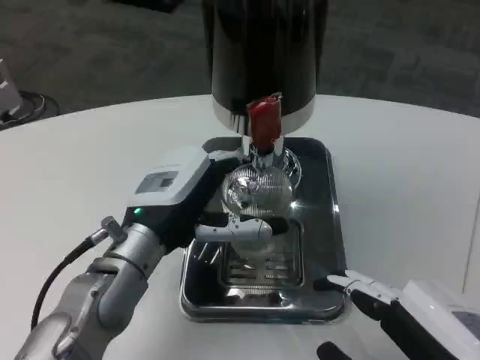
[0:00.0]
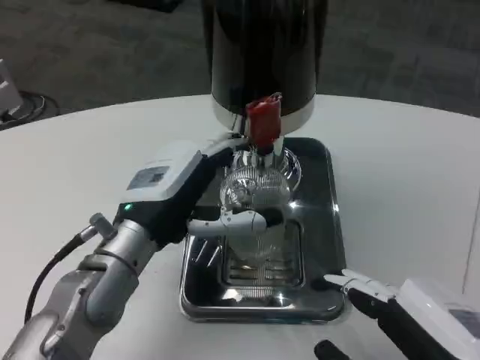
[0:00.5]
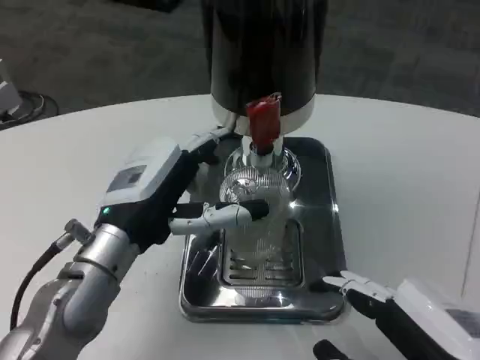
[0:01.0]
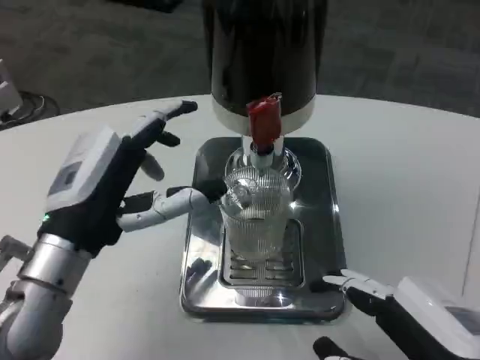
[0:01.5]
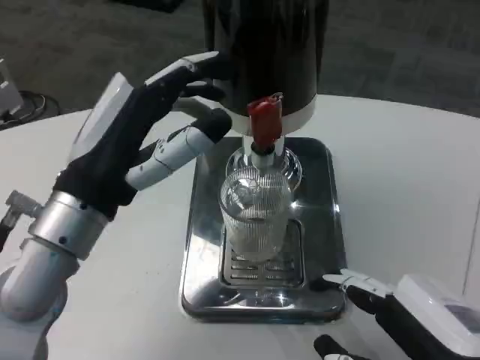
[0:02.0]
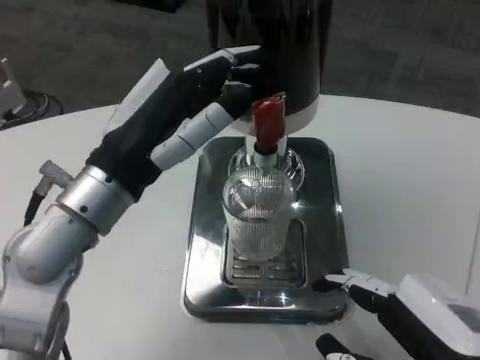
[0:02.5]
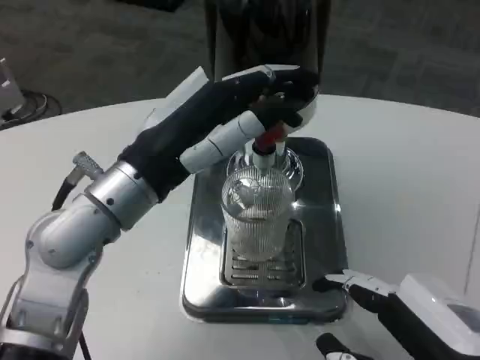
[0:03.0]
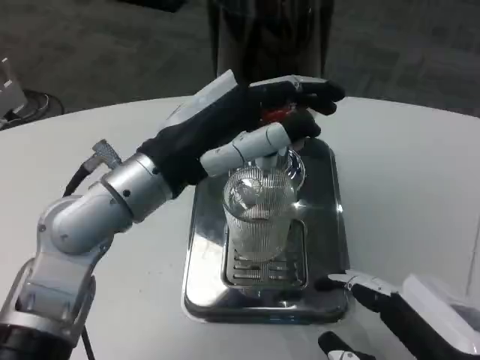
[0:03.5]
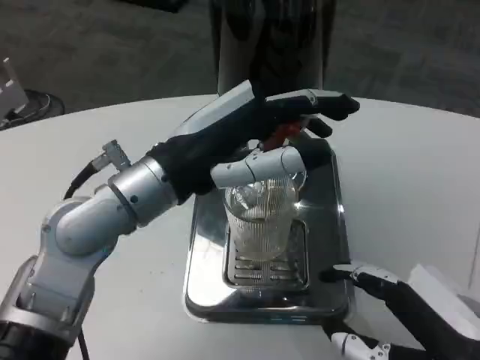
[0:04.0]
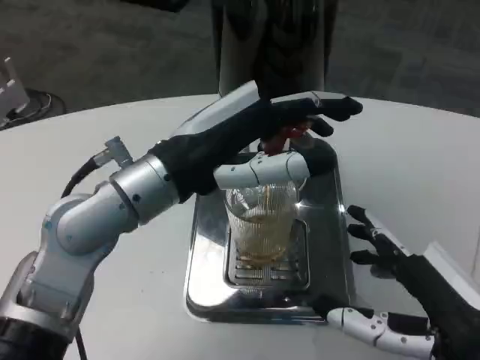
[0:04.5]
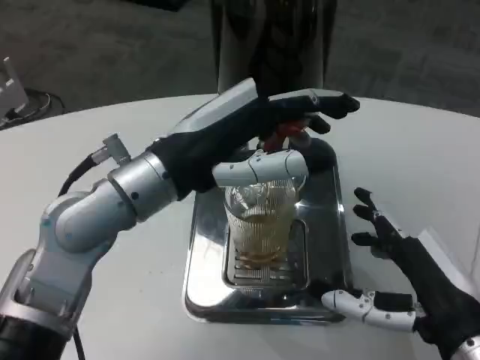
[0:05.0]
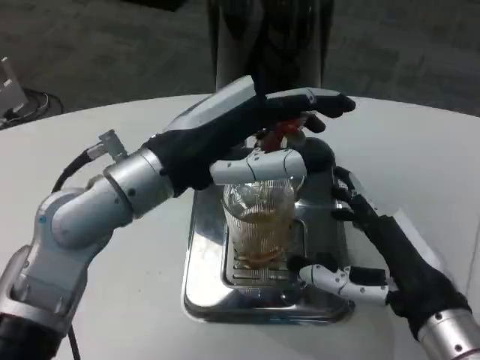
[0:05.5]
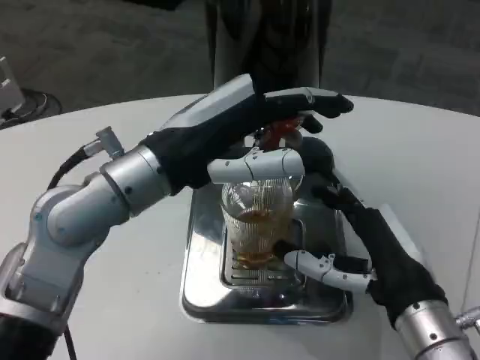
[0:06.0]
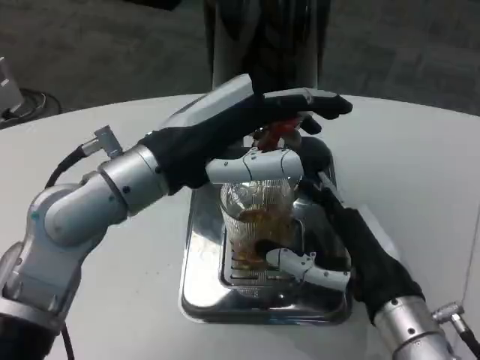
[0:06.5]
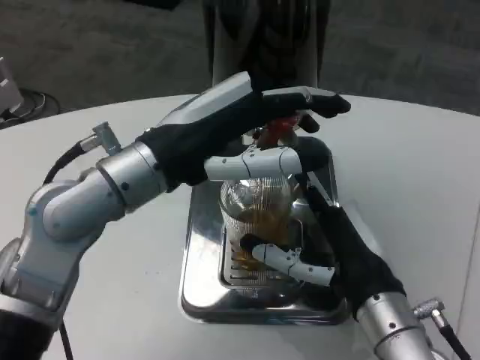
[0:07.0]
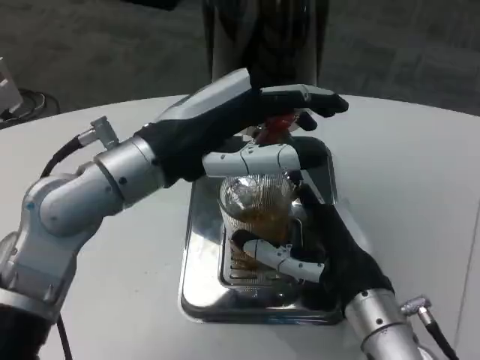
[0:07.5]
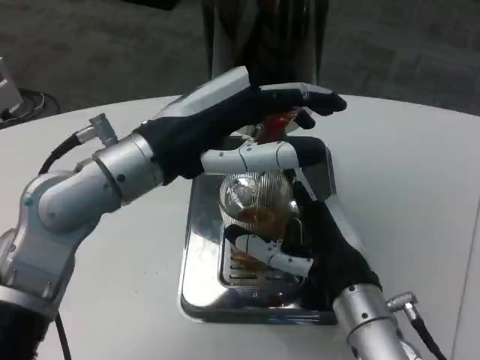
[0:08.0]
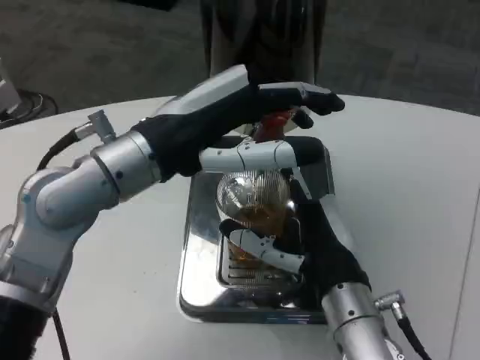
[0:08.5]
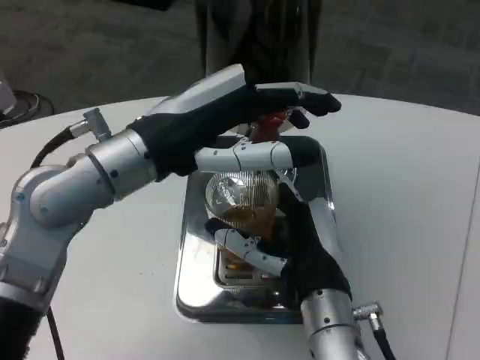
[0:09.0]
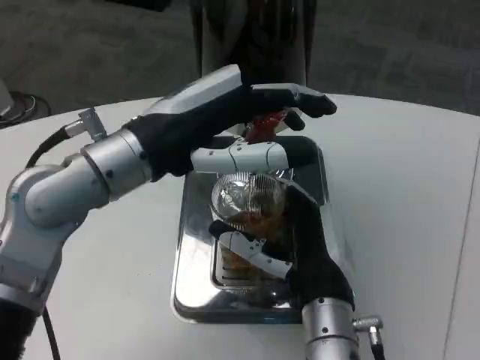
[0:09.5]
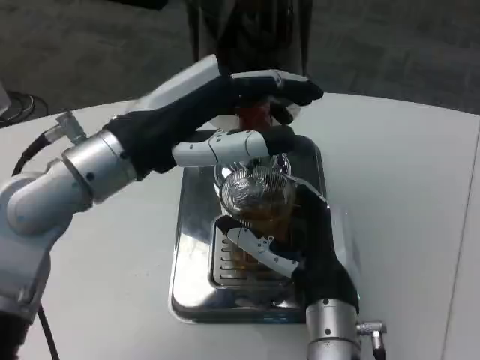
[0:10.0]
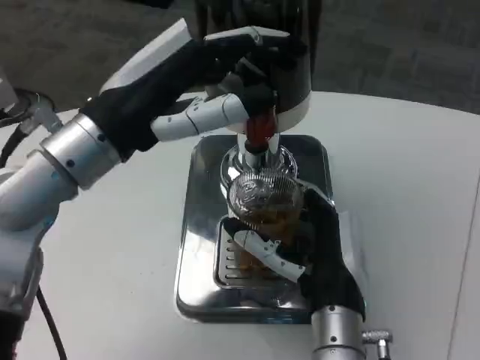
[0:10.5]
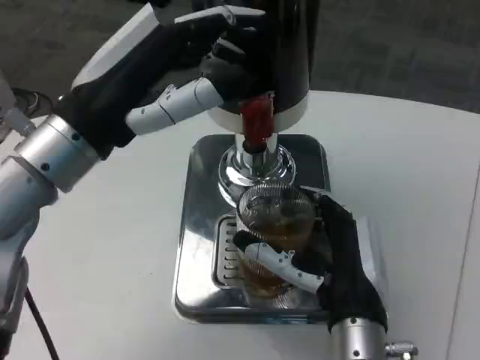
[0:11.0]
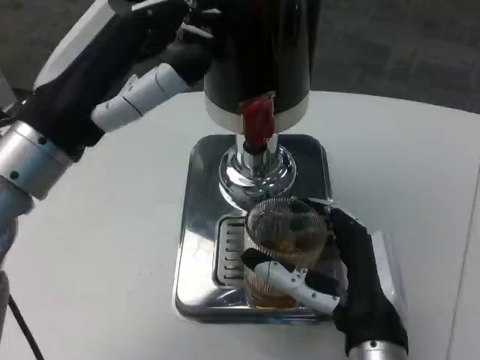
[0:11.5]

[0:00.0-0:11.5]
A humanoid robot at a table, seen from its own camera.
Task of the whole recording: Grasp the cup under the faucet to collect the drink, then remove the cup.
0:00.0 to 0:02.0: The left hand goes roughly 5 cm upward.
0:02.0 to 0:04.0: The left hand shifts by roughly 5 cm.
0:04.0 to 0:06.0: The right hand goes approximately 10 cm forward.
0:07.5 to 0:09.5: The right hand moves to the left, roughly 5 cm.
0:09.5 to 0:11.5: The right hand is displaced backward by some 5 cm. The left hand moves about 5 cm.

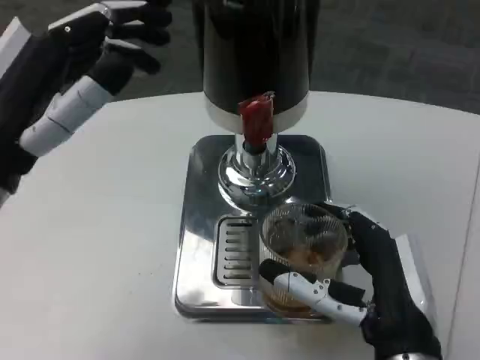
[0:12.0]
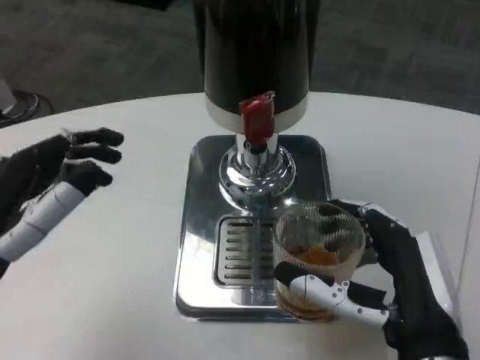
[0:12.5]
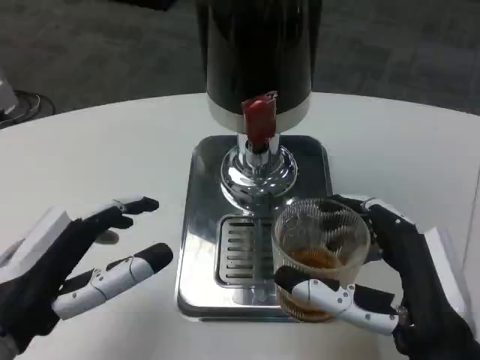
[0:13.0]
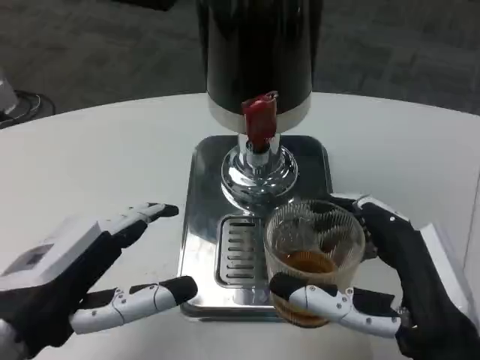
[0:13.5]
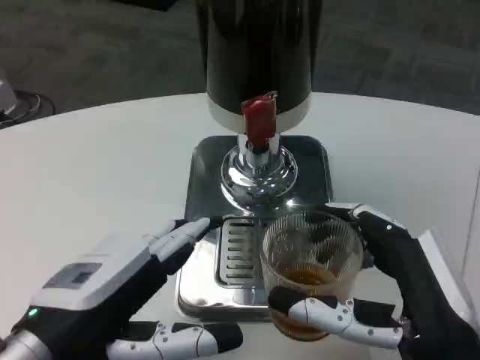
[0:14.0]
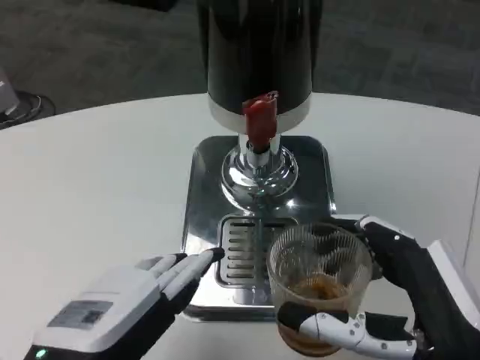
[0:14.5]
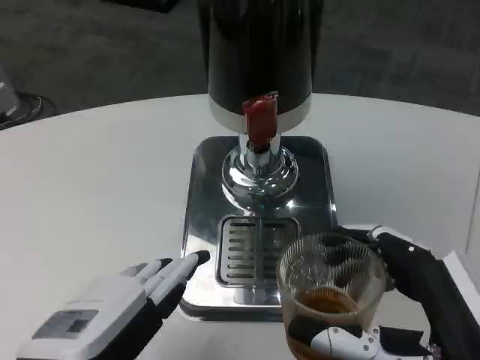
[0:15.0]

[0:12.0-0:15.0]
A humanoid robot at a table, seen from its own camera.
Task of the whole recording: Grasp the cup under the faucet to collect the drink, then remove the cup.
0:12.0 to 0:13.5: The right hand ends up approximately 5 cm from where it was; the left hand moves downward and backward, approximately 10 cm.
0:13.5 to 0:15.0: The left hand heads backward, covering roughly 5 cm.

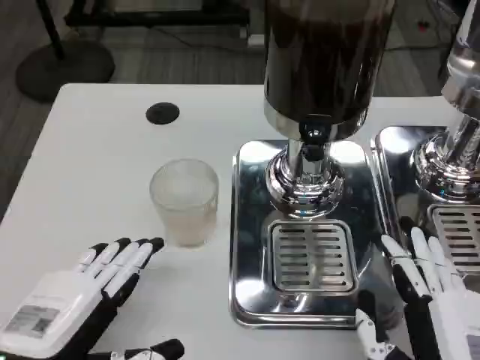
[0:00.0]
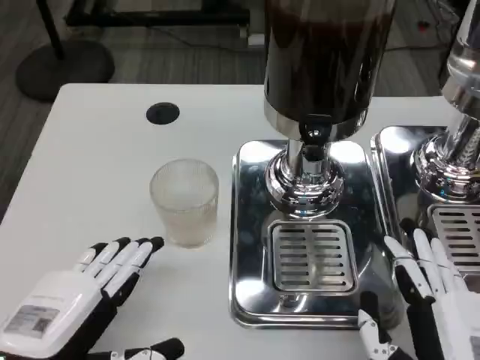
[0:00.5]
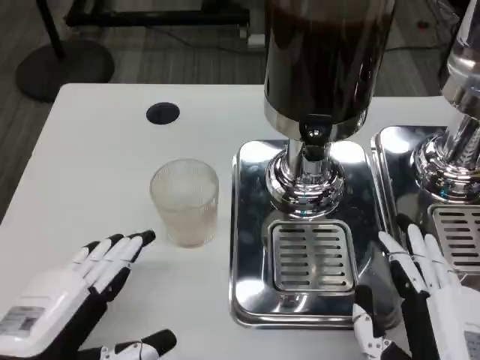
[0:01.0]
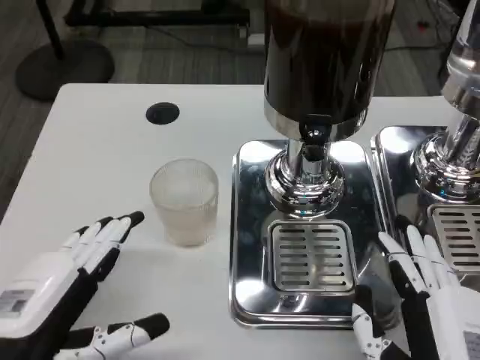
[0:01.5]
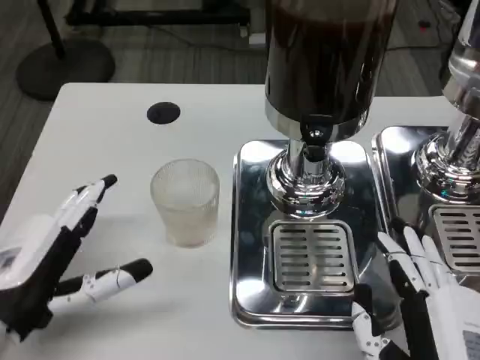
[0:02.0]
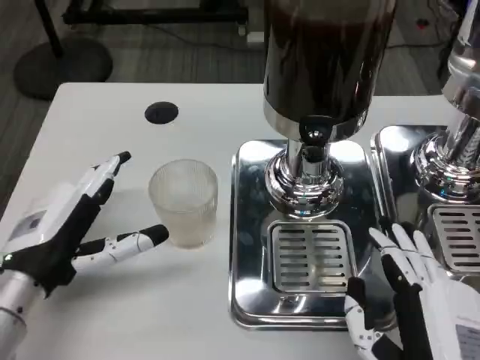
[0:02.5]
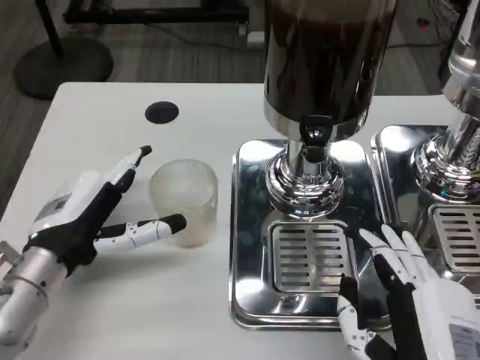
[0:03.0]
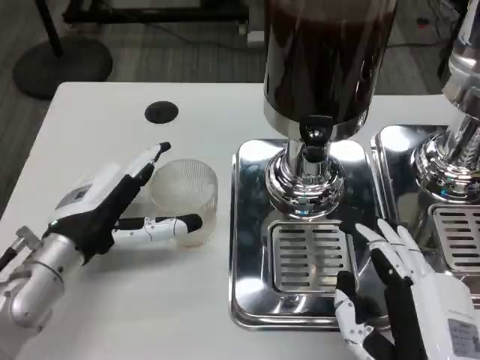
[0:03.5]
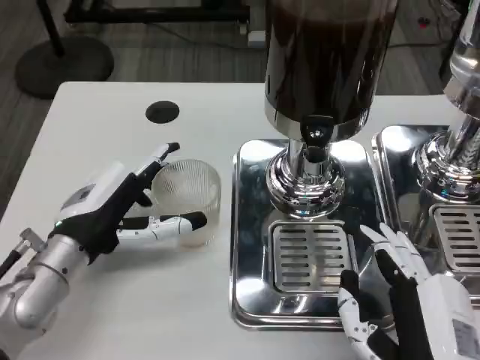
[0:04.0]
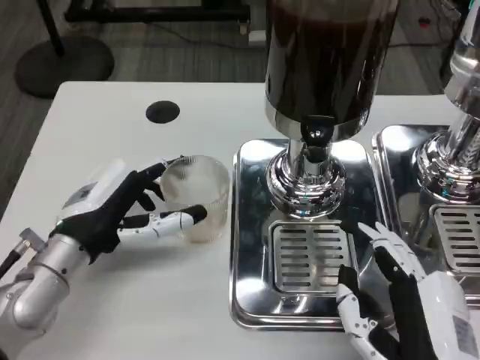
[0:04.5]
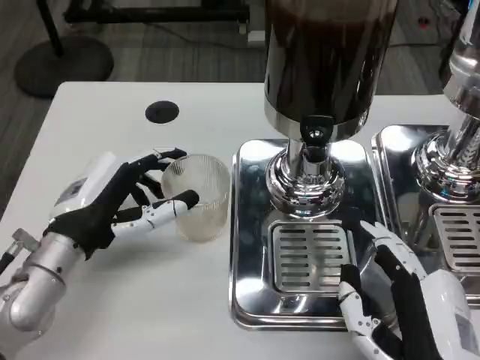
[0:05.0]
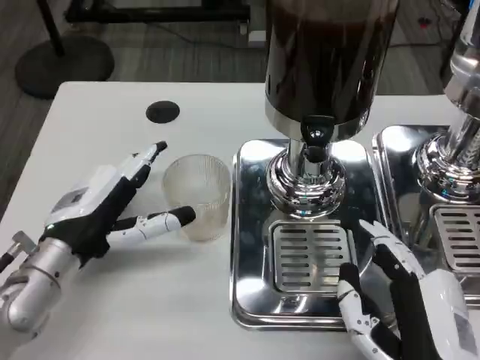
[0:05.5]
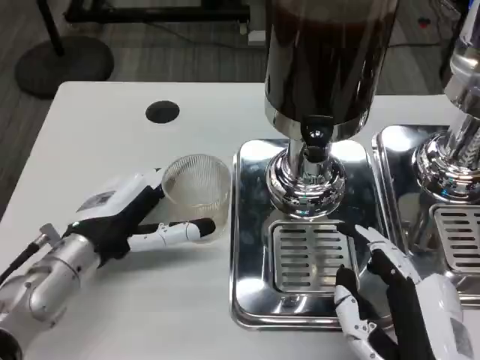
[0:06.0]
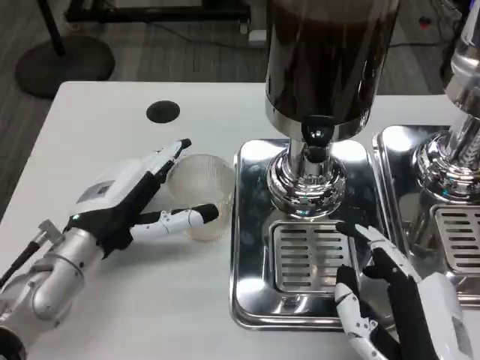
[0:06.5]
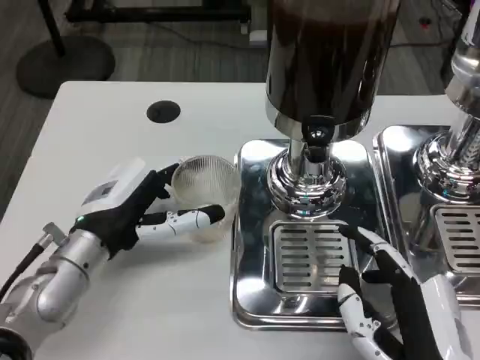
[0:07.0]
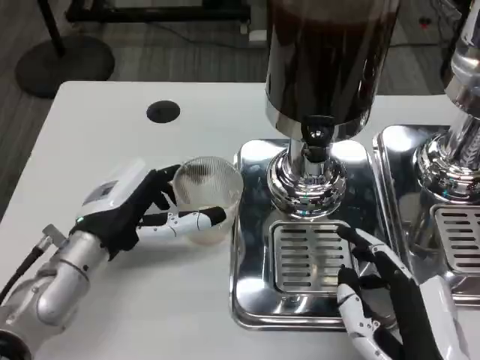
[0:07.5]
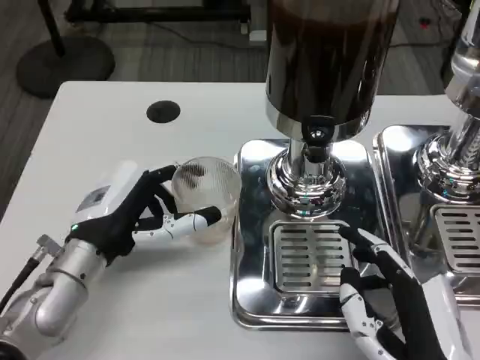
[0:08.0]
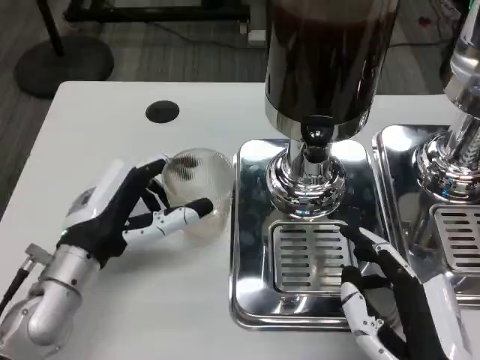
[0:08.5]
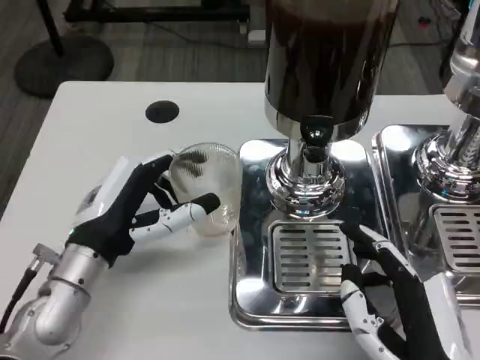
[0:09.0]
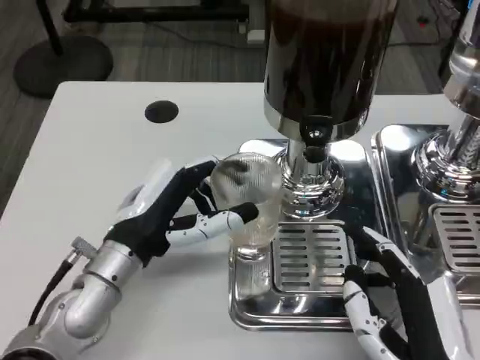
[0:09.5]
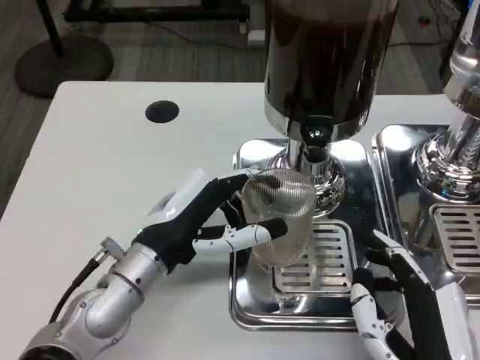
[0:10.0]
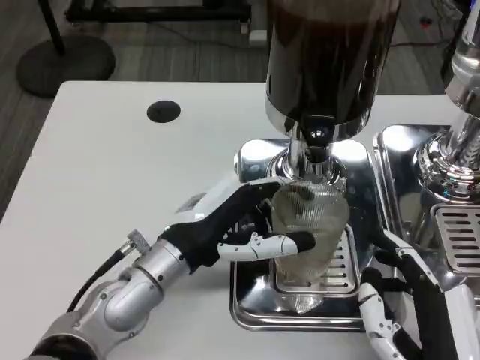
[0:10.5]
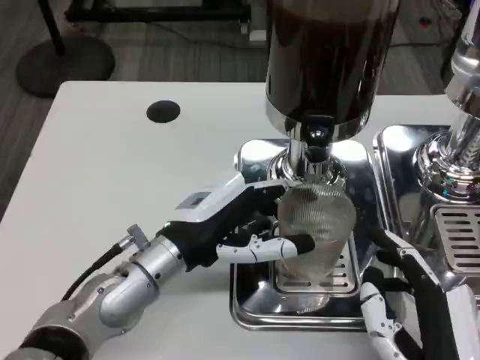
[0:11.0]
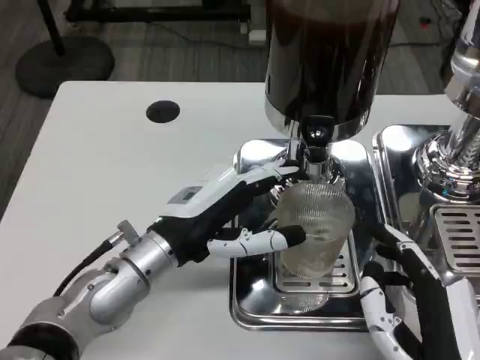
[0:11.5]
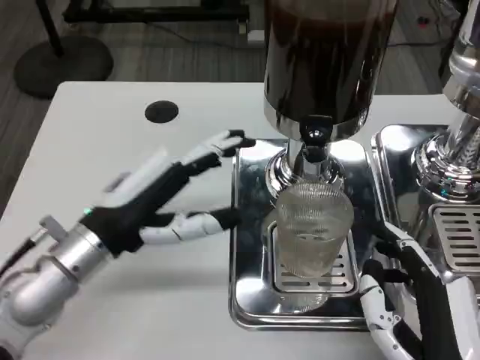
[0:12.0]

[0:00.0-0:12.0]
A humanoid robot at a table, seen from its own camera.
Task of the whole recording: Grasp the cup under the faucet to collect the drink, then remove the cup.
0:00.0 to 0:02.0: The left hand shifts some 5 cm forward.
0:02.0 to 0:04.0: The left hand travels forward by roughly 10 cm.
0:04.0 to 0:08.0: There are only small adjustments of the hands.
0:08.0 to 0:10.0: The left hand travels to the right by some 5 cm.
0:10.0 to 0:12.0: The left hand goes about 5 cm to the left.
